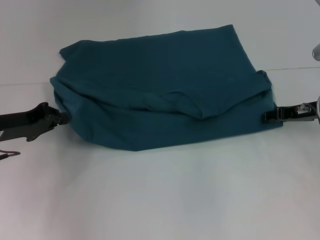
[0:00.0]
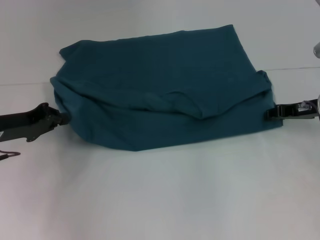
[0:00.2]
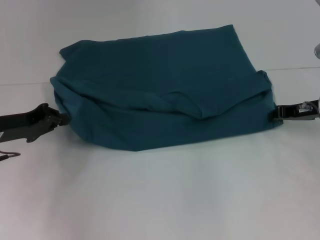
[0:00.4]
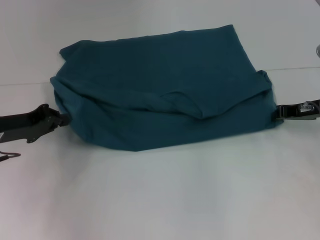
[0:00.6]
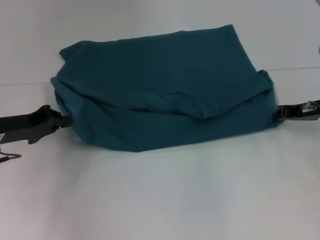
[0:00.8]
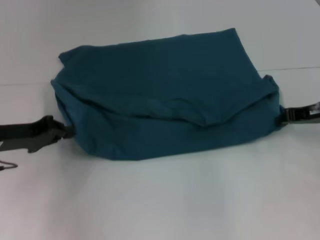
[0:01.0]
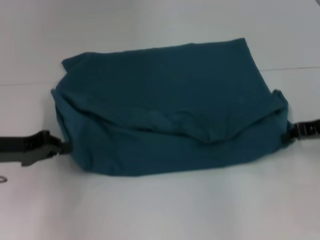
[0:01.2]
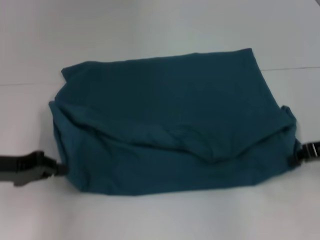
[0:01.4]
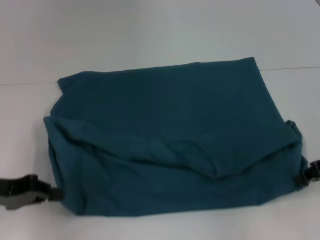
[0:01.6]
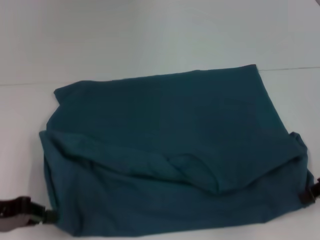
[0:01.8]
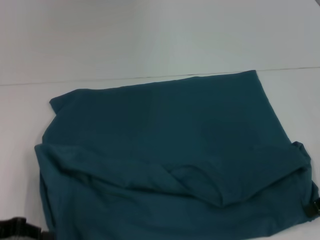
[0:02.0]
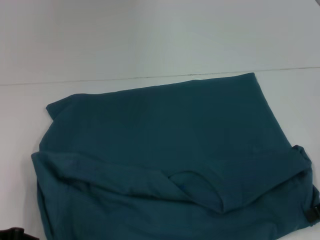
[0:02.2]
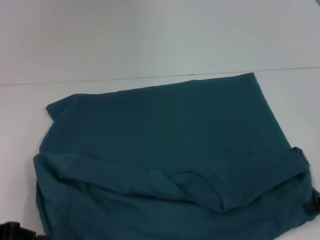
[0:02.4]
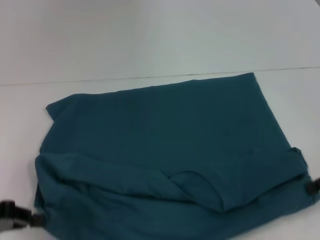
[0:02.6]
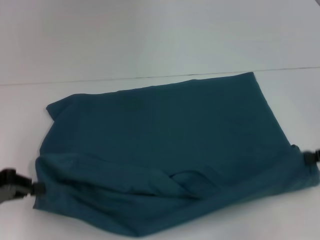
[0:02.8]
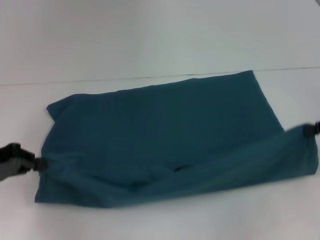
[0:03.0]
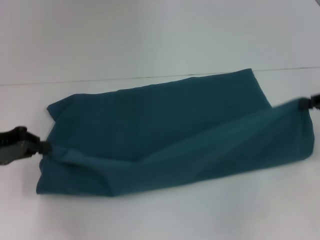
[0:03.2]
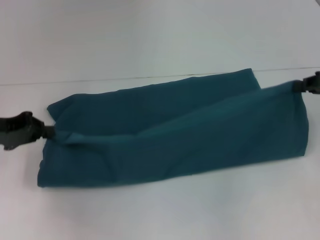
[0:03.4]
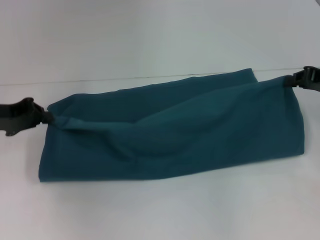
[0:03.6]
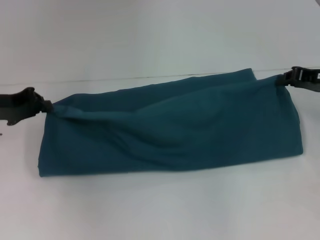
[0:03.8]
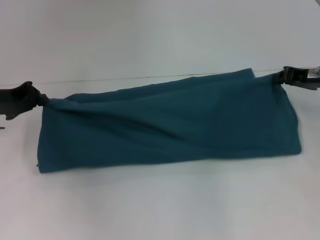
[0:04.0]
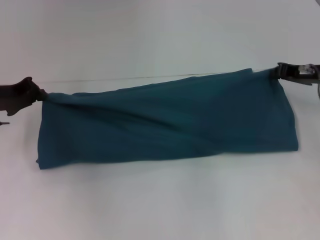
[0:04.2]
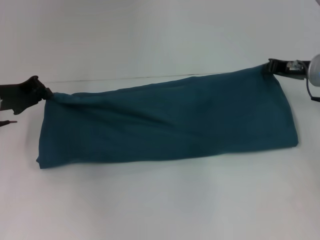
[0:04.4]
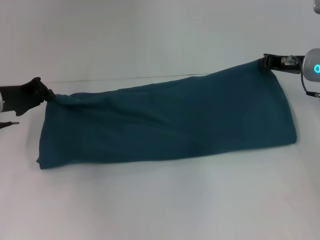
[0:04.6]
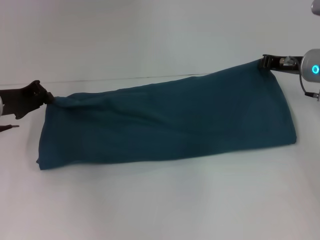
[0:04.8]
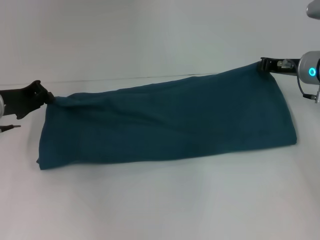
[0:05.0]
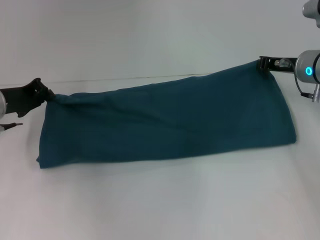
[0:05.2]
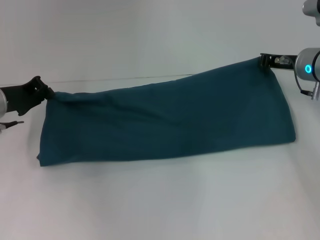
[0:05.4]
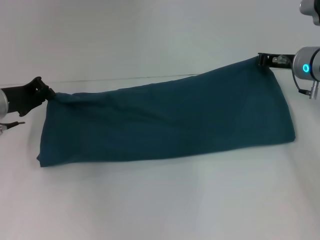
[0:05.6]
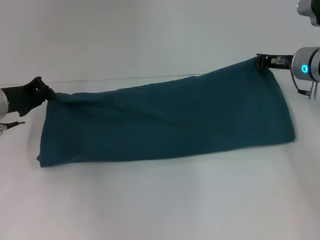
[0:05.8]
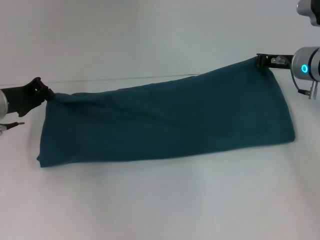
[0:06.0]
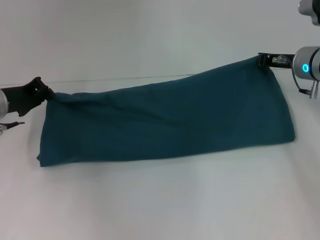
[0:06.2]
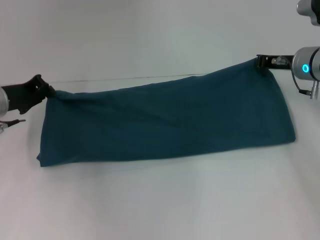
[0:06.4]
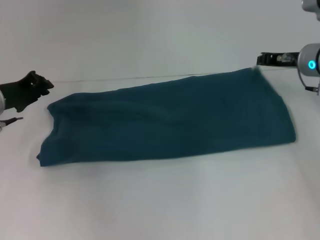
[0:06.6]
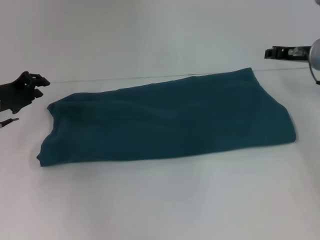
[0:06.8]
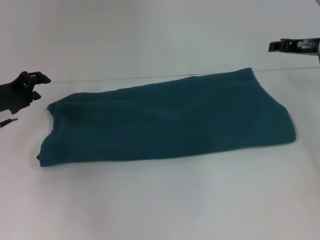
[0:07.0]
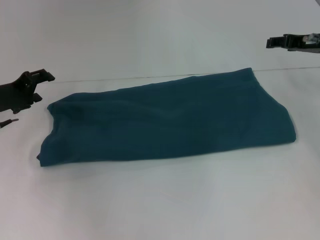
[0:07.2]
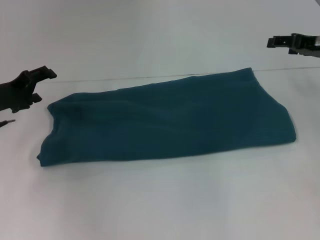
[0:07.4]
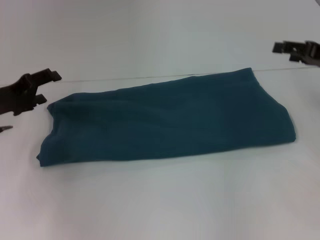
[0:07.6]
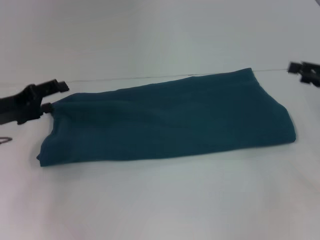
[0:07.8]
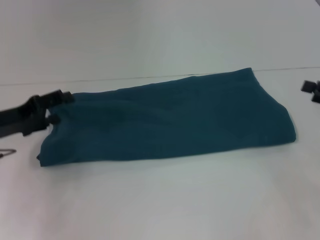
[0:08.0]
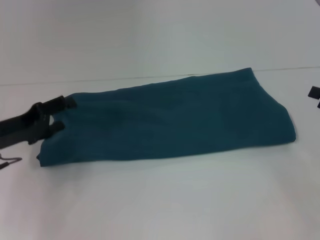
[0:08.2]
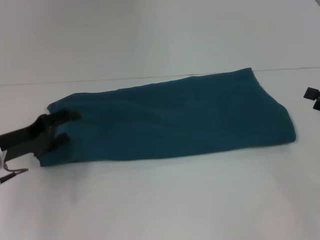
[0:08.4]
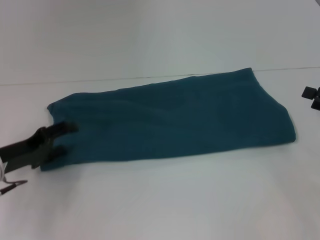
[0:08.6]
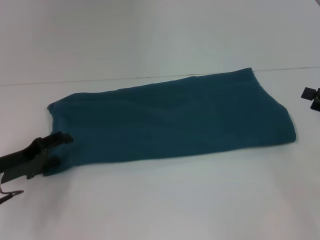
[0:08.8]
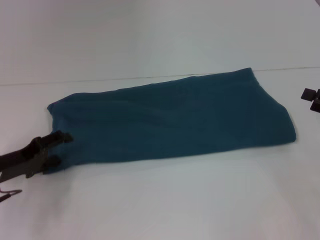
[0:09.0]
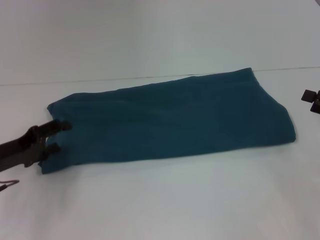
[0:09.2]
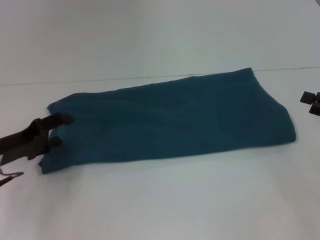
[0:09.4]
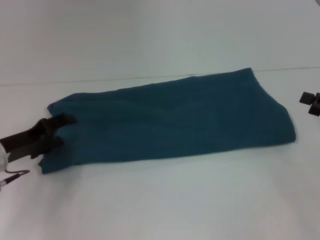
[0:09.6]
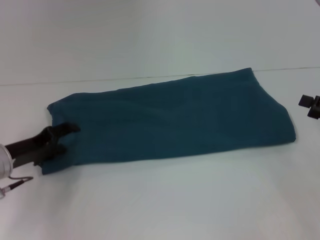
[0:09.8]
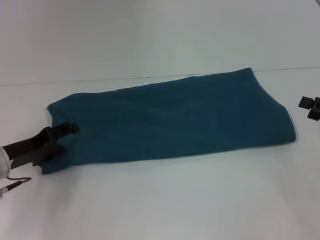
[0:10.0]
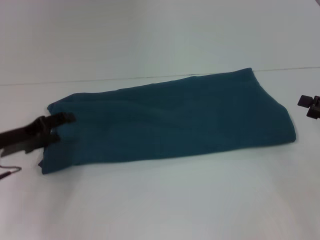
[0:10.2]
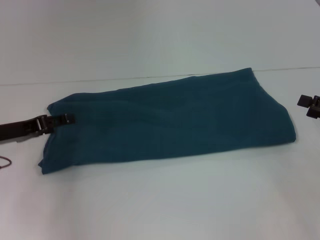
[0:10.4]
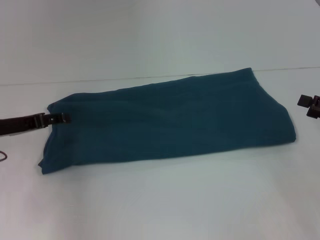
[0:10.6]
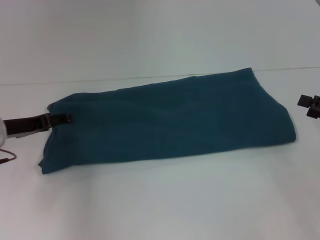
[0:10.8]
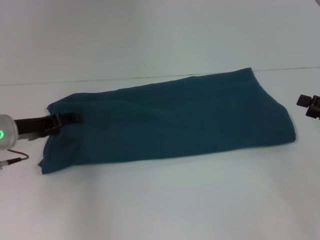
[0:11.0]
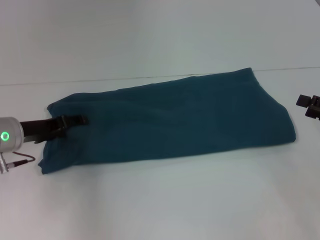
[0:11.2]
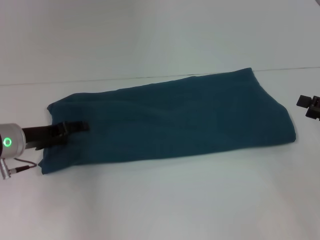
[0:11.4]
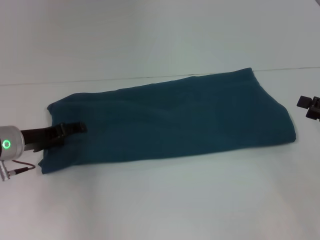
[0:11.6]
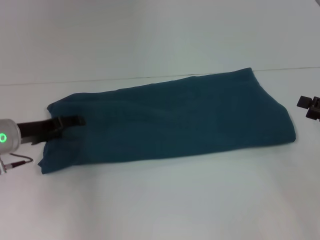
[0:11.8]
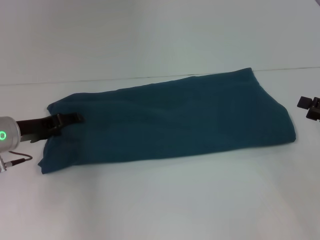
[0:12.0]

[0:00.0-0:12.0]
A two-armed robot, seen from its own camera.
Step, 0:00.0 to 0:02.0: Pull the clothes with your left hand.
Step, 0:00.0 to 0:02.0: Pull the clothes with your right hand.
Step, 0:02.2 to 0:06.6: Fold the clothes to the right.
0:00.0 to 0:01.6: The two grippers go about 10 cm backward. The right gripper closes up.
0:03.0 to 0:04.4: The right gripper moves forward and to the left, about 15 cm. Meanwhile the left gripper is displaced forward by about 10 cm.
0:04.4 to 0:06.0: The grippers make only small movements.
0:06.0 to 0:07.6: The left gripper opens, while the right gripper travels to the right and backward by some 10 cm, and opens its fingers.
0:07.6 to 0:09.0: The left gripper goes about 10 cm downward and backward. Meanwhile the right gripper is displaced backward and downward by some 10 cm.
0:09.0 to 0:10.4: The left gripper shifts roughly 5 cm upward.
0:10.4 to 0:12.0: The grippers stay close to where they were, moving slightly.

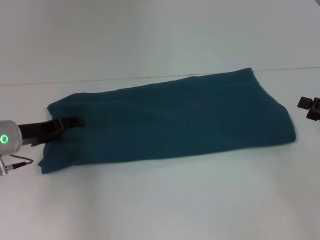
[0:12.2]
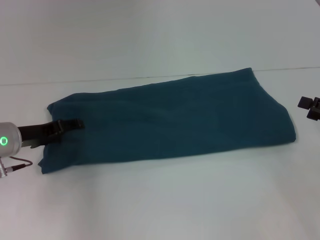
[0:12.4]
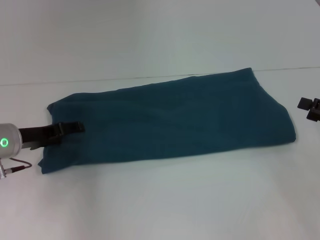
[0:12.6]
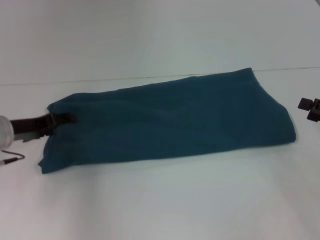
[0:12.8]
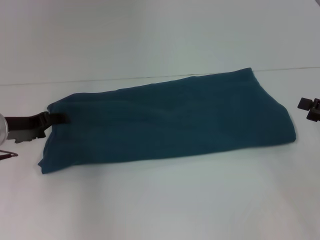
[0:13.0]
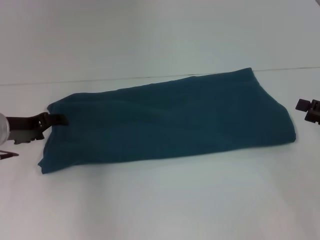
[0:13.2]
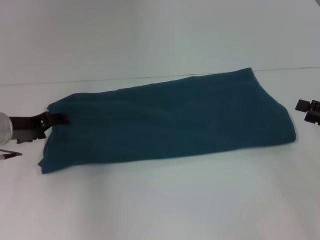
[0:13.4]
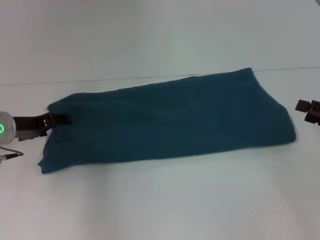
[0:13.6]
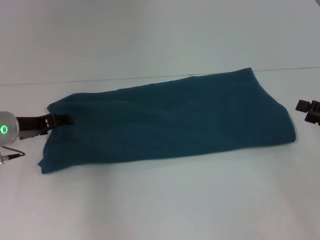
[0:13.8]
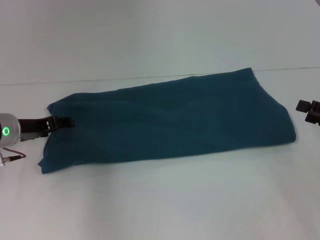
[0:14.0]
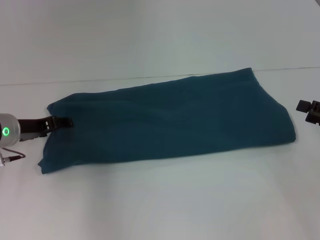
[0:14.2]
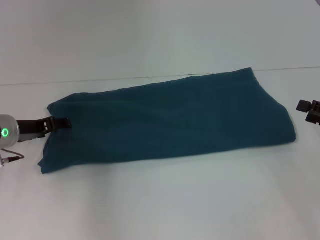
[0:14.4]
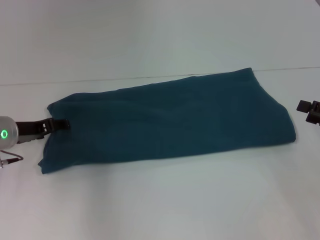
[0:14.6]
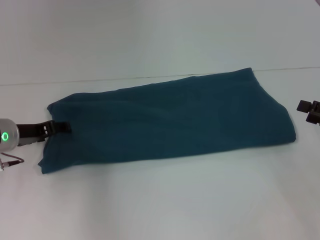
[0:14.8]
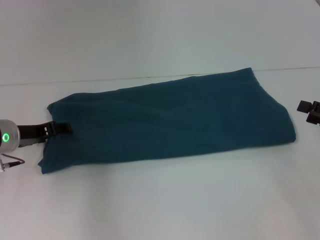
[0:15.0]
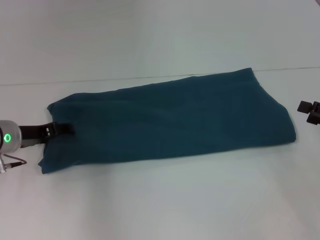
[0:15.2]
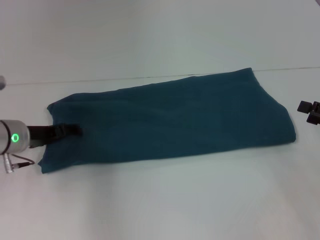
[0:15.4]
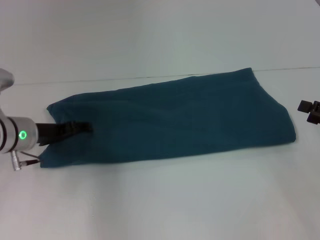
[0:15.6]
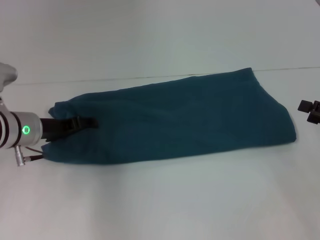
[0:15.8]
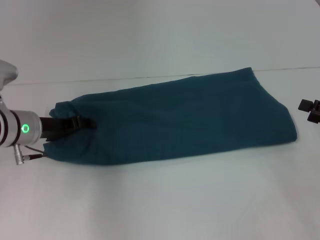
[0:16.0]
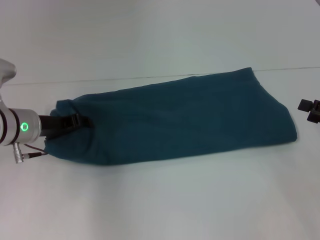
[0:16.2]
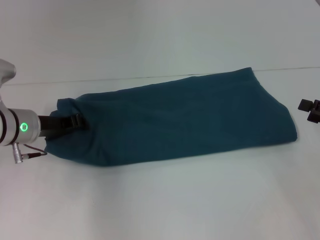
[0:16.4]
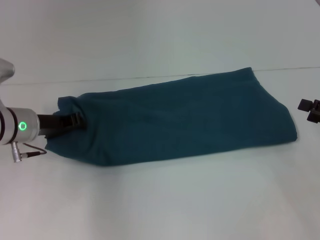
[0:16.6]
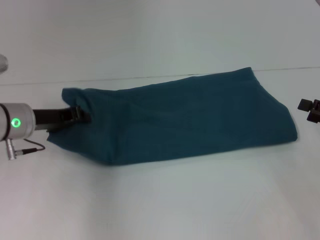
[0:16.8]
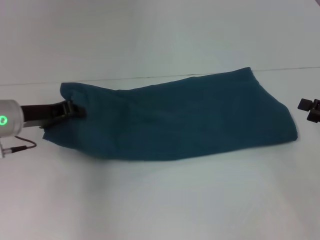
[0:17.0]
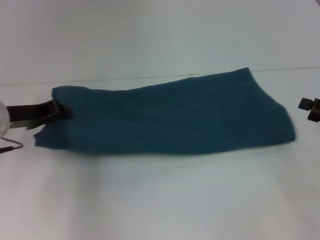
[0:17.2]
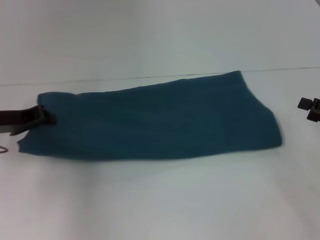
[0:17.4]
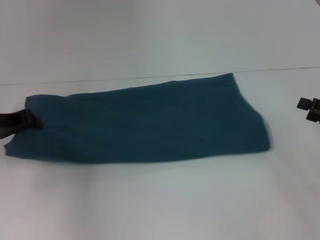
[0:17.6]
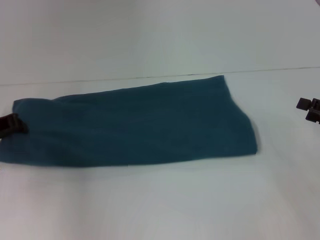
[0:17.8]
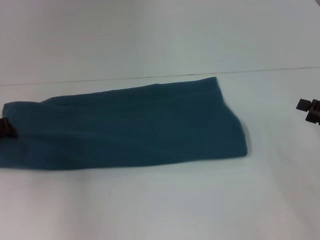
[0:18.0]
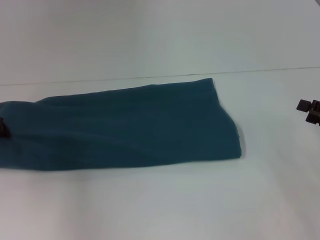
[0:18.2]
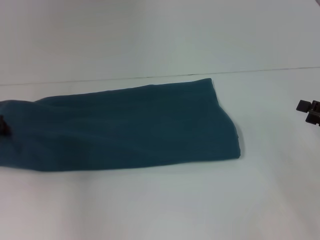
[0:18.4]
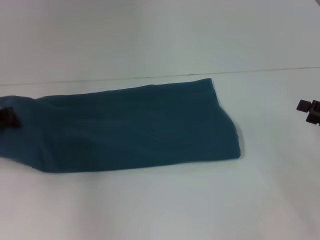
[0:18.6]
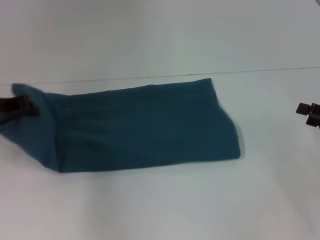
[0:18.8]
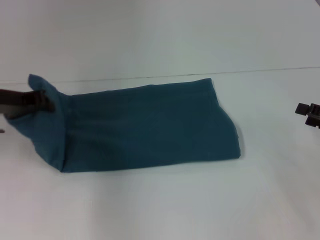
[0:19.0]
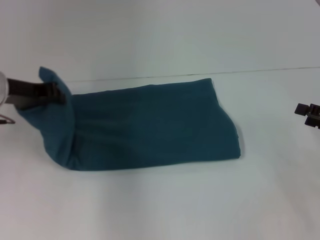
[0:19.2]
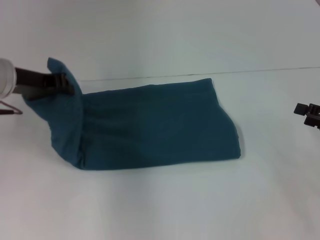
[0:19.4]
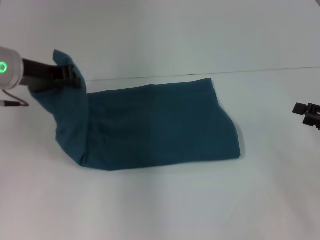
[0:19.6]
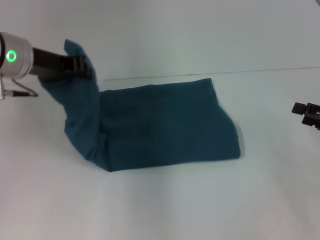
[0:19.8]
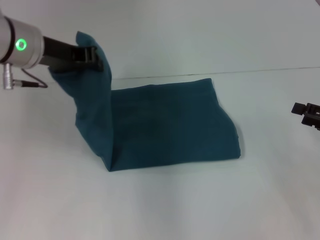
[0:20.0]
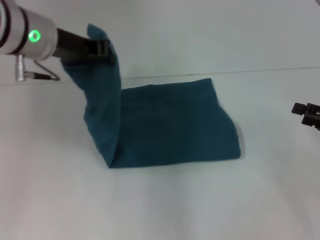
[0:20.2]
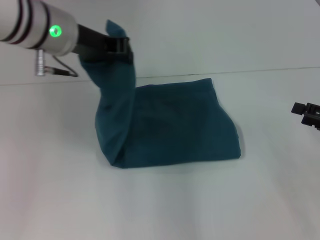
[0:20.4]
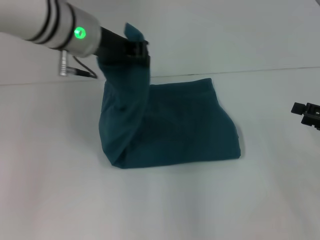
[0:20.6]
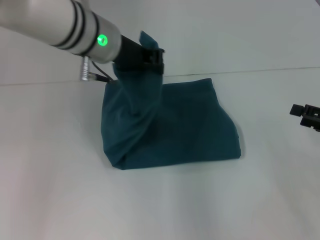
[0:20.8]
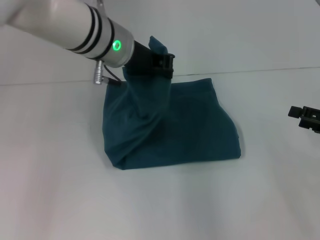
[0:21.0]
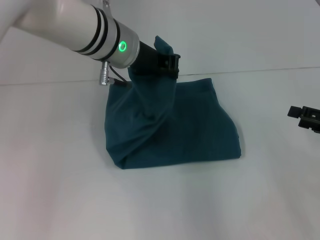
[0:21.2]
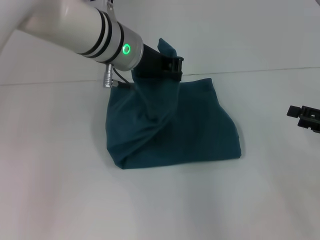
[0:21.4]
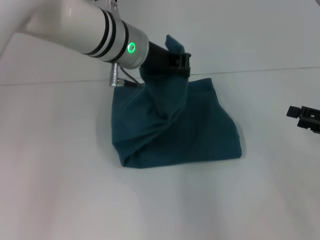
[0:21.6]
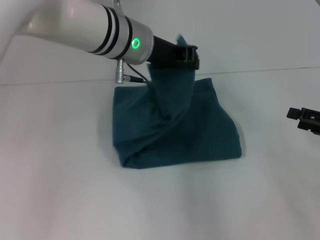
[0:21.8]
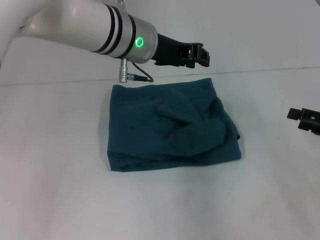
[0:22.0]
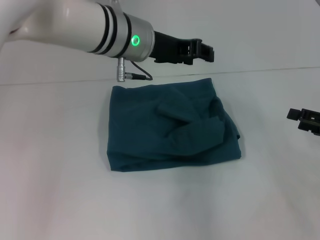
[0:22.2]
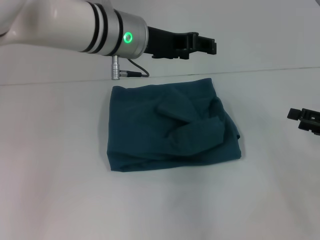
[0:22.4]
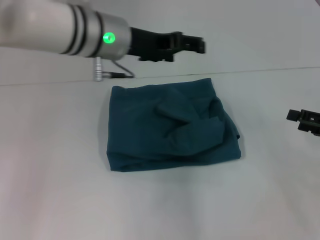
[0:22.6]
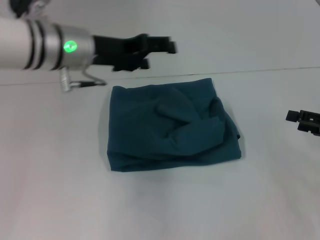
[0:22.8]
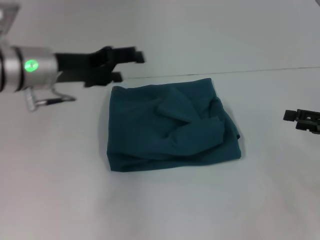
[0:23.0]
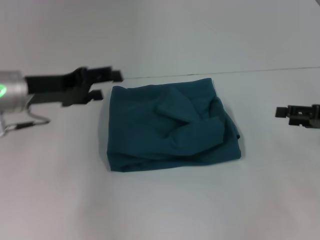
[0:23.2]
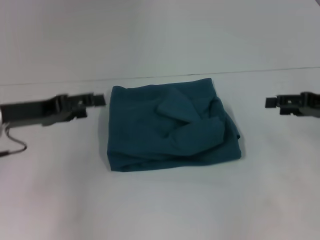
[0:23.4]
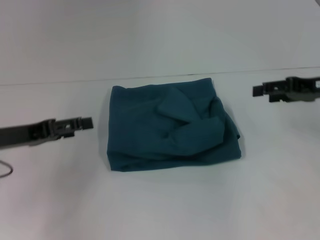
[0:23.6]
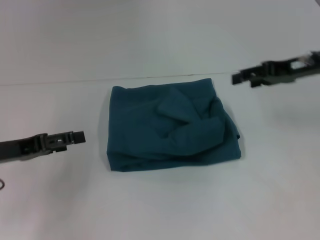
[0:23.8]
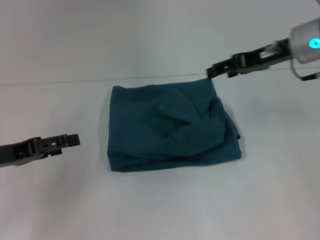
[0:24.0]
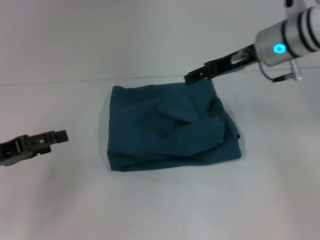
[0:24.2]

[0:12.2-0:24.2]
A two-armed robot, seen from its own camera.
Step, 0:12.2 to 0:22.0: Fold the clothes to the left.
0:12.2 to 0:13.8: The grippers stay close to where they were, moving slightly.
0:13.8 to 0:15.2: Both grippers stay about where they are.
0:15.2 to 0:16.6: The left gripper closes.
0:16.6 to 0:18.2: The left gripper shifts roughly 10 cm to the left.
0:18.2 to 0:19.8: The left gripper shifts roughly 15 cm to the right and upward.
0:19.8 to 0:21.2: The left gripper is displaced to the right by about 15 cm.
0:21.2 to 0:22.6: The left gripper opens.
0:22.6 to 0:24.2: The right gripper shifts roughly 25 cm to the left, forward and upward. Meanwhile the left gripper goes about 30 cm to the left, backward and downward.
